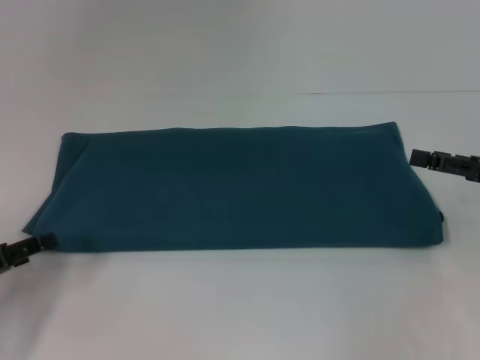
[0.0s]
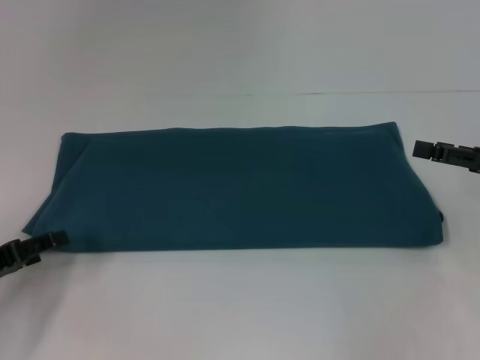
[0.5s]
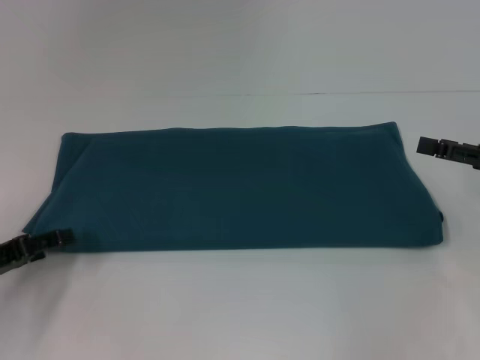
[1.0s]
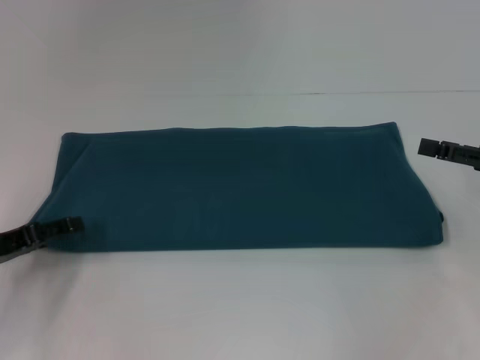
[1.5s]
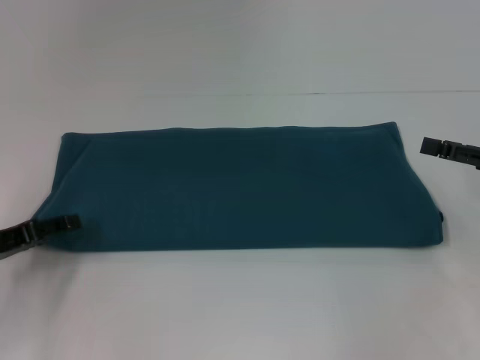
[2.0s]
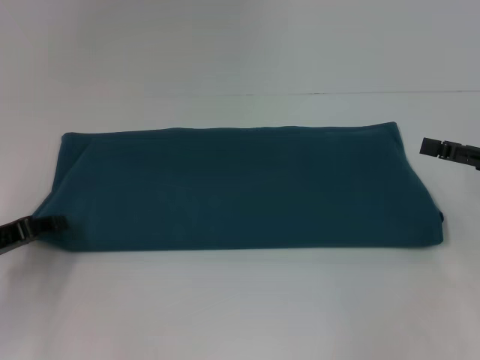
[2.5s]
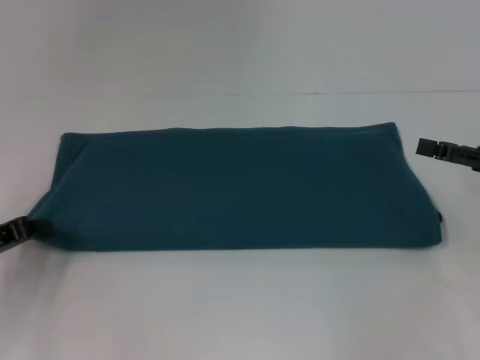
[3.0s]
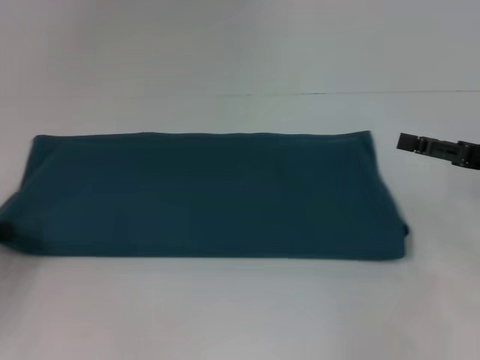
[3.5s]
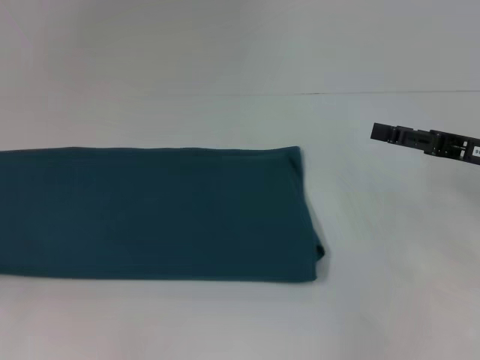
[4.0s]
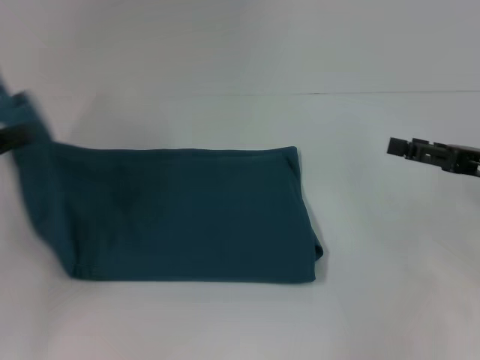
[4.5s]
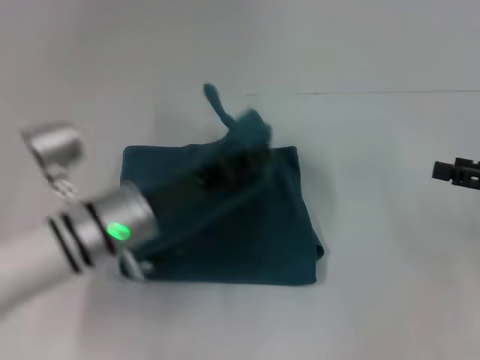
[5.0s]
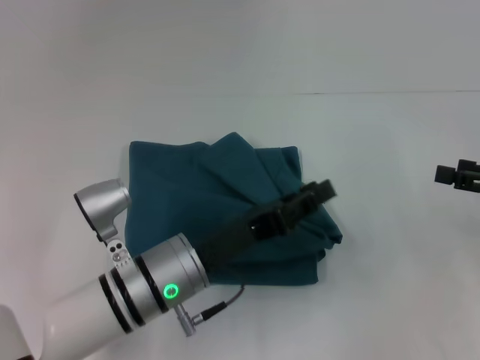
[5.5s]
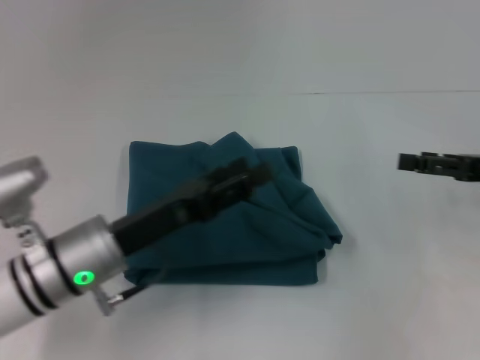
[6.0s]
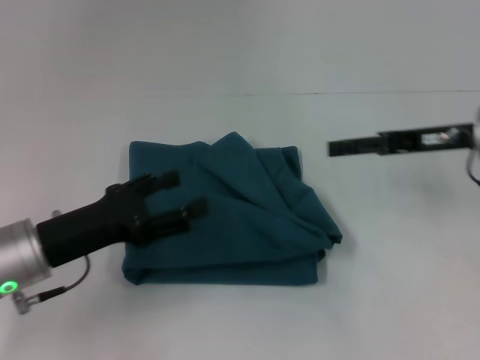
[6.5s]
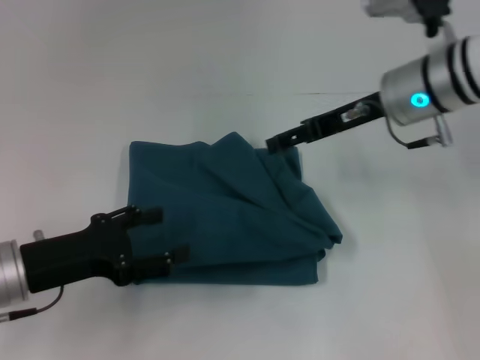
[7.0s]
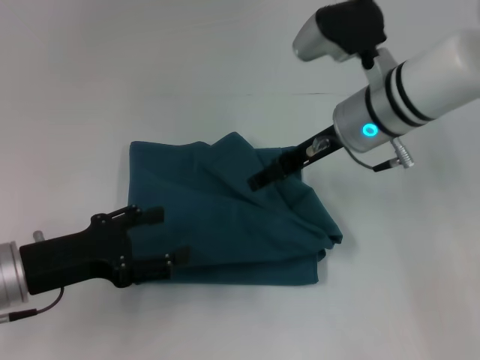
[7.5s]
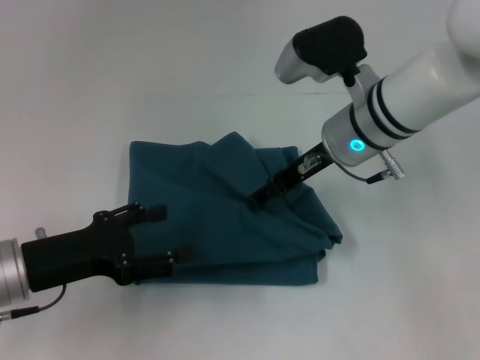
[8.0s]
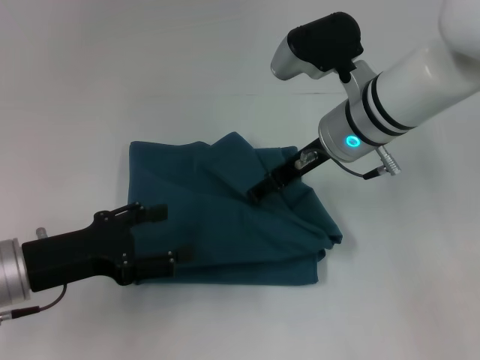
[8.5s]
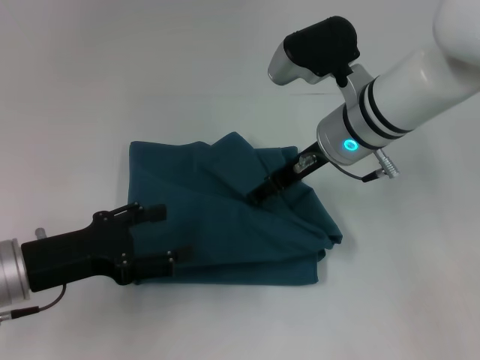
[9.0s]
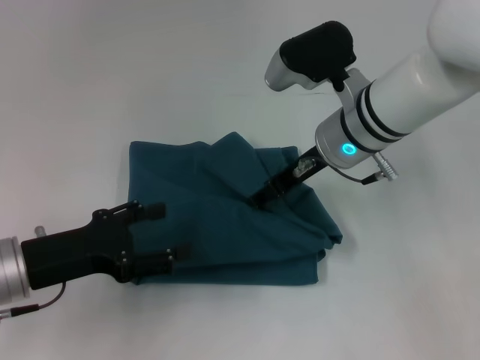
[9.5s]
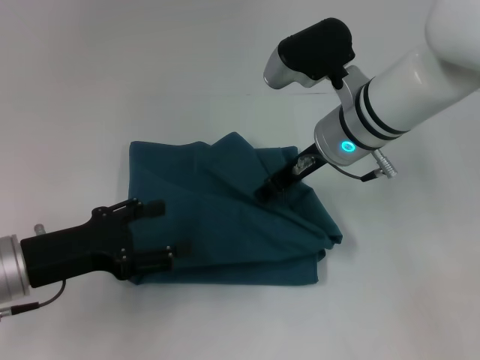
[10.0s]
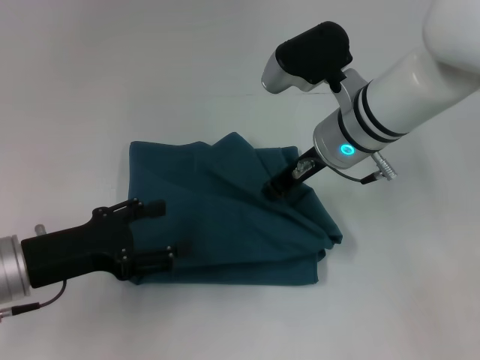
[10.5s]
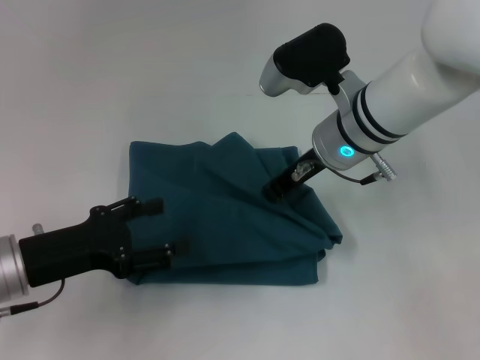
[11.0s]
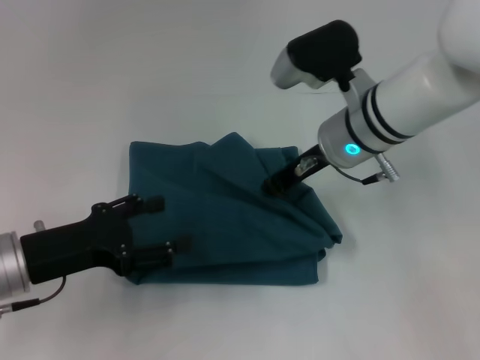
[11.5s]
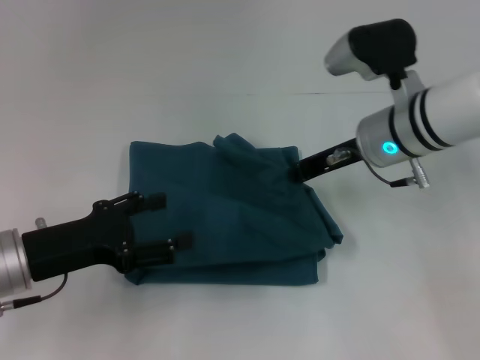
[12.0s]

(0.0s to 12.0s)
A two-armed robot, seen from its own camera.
Step, 0.0s - 5.5s: Fold the clothes to the left.
0.0s - 2.0s: The grippers make only small movements.
2.0s - 4.0s: The left gripper travels to the left and backward by roughly 10 cm, and closes its fingers. Meanwhile the right gripper changes place by about 5 cm.
4.0s - 6.0s: The left gripper moves to the right, roughly 25 cm, and opens.
6.0s - 8.0s: The right gripper shifts roughly 25 cm to the left, while the left gripper is displaced to the left by some 10 cm.
8.0s - 10.0s: Both grippers stay put.
10.0s - 12.0s: The right gripper goes approximately 5 cm to the right, and closes its fingers.

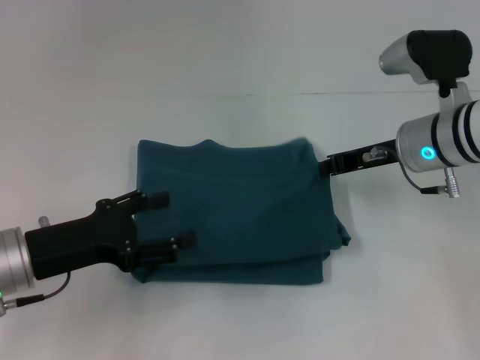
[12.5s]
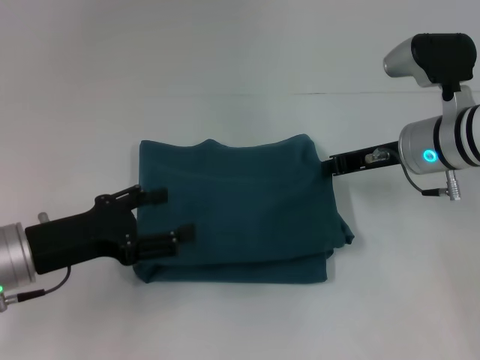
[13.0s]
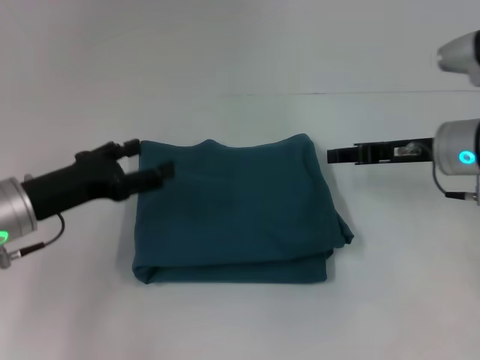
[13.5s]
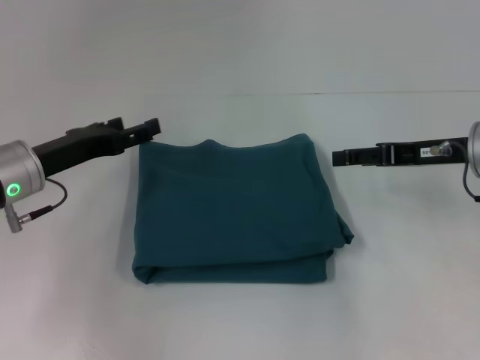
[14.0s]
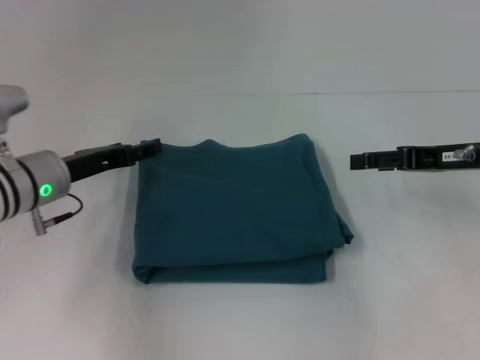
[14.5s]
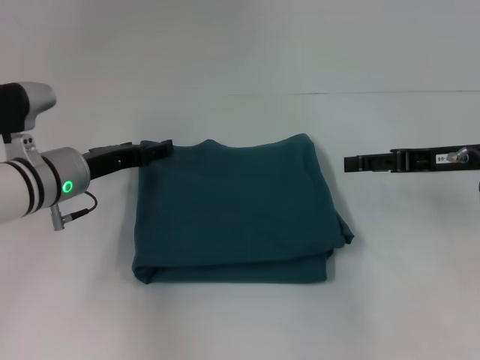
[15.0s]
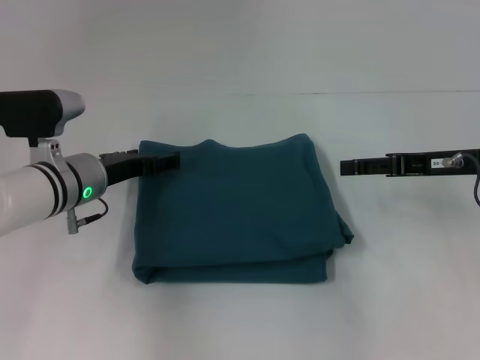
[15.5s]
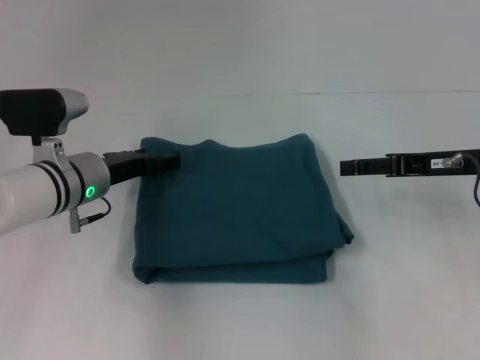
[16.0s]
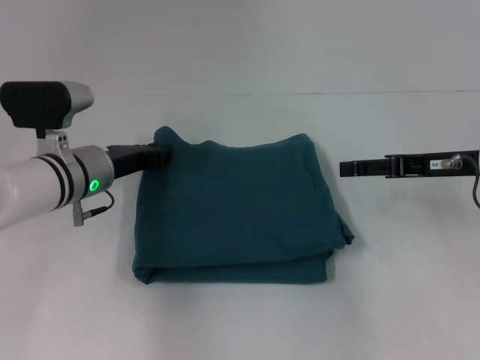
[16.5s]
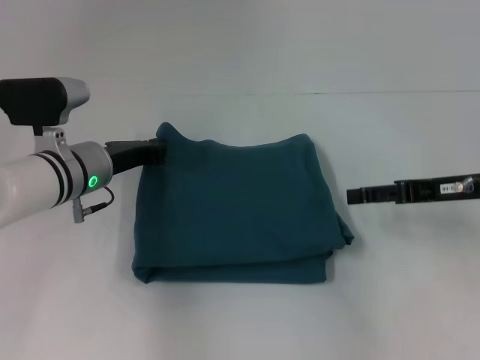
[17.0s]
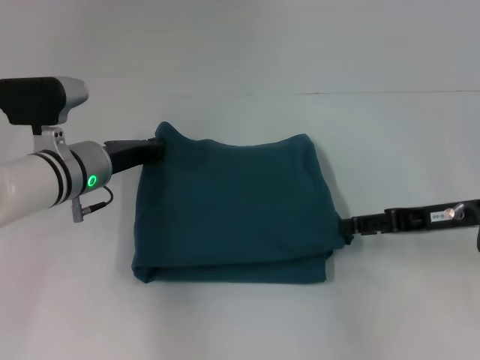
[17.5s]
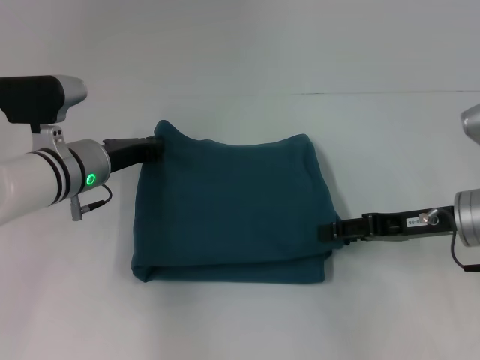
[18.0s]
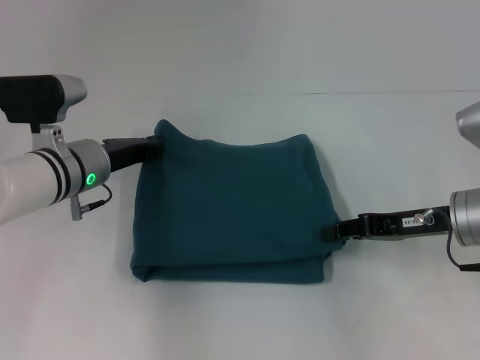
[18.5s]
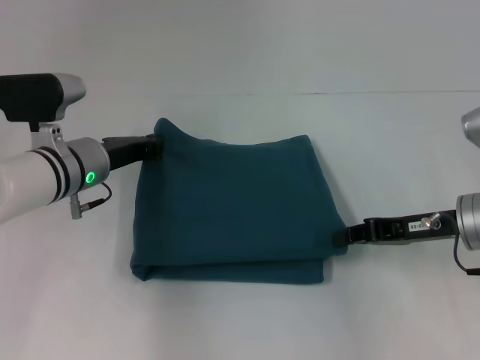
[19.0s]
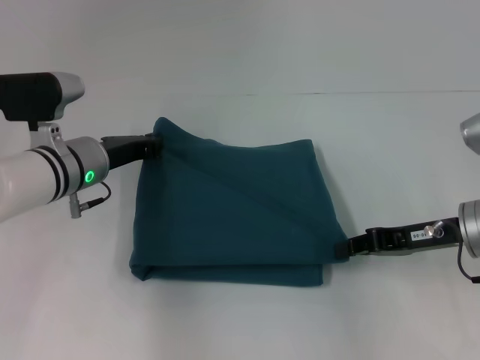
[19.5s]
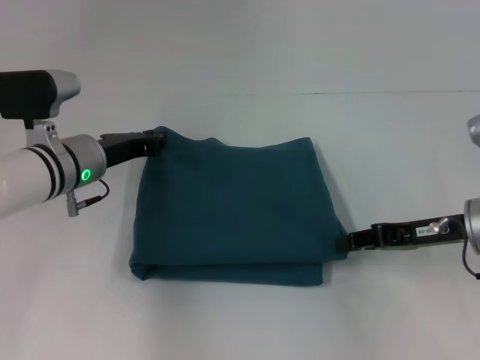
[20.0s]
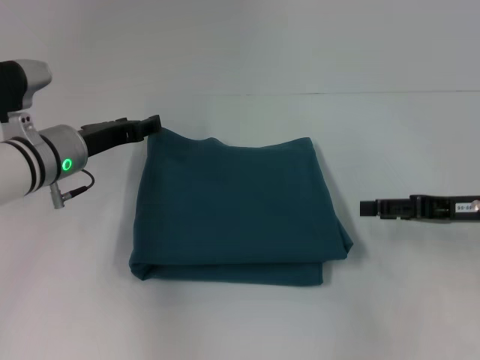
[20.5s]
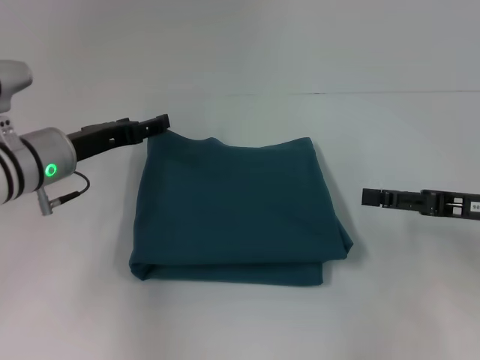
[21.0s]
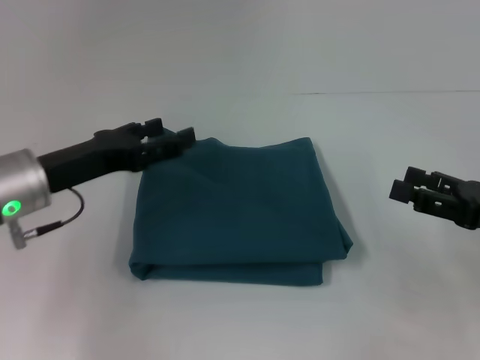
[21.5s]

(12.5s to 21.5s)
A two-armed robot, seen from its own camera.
12.5s - 14.5s: The right gripper goes approximately 10 cm to the right, and opens its fingers. The left gripper moves forward, about 10 cm.
14.5s - 17.0s: The left gripper shifts by some 5 cm, and closes.
17.0s - 19.5s: The right gripper closes up.
19.5s - 21.5s: The left gripper moves backward, some 5 cm, and opens, while the right gripper moves to the right and backward, approximately 10 cm, and opens up.

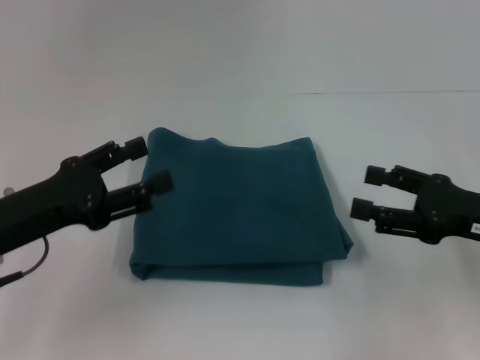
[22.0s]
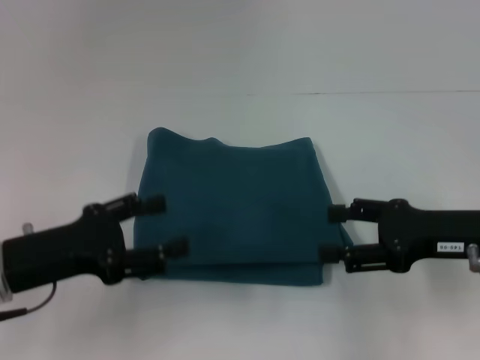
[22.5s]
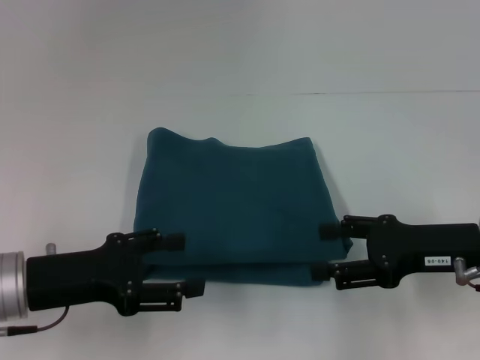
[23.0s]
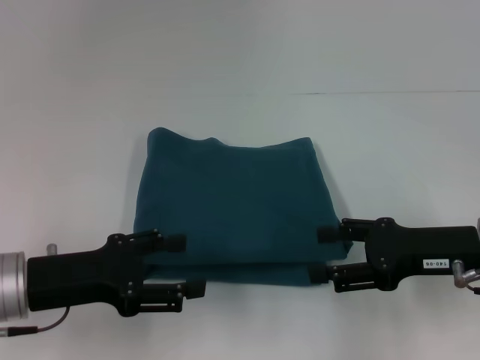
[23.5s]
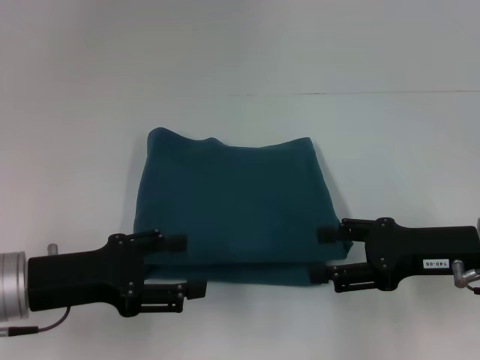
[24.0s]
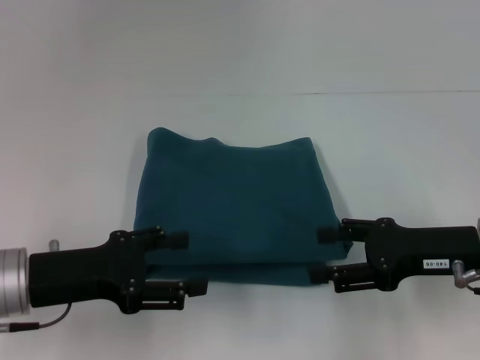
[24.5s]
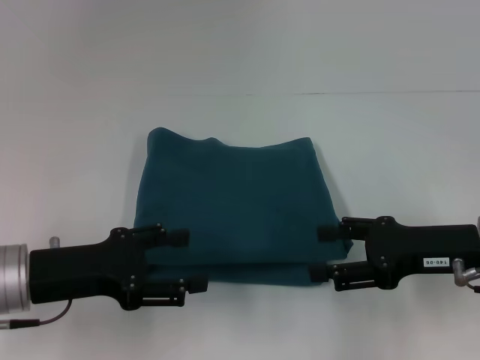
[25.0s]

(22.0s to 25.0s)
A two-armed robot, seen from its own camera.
23.5s - 25.0s: Neither gripper changes place.

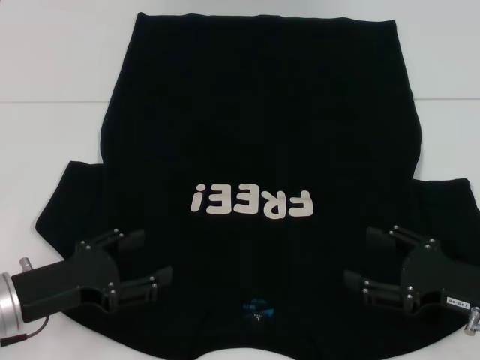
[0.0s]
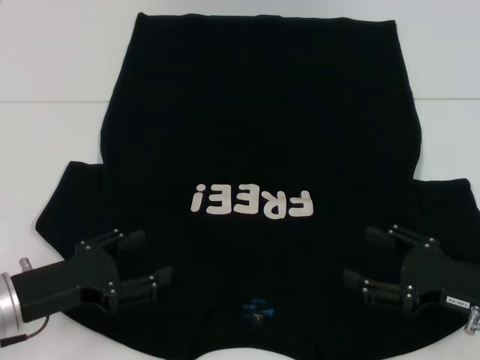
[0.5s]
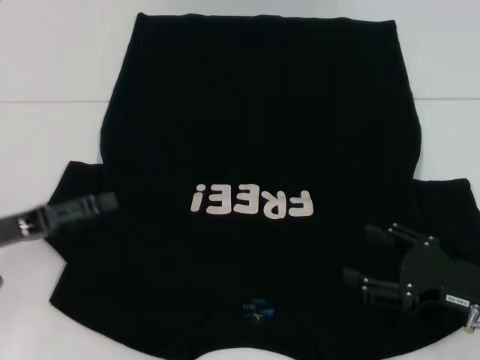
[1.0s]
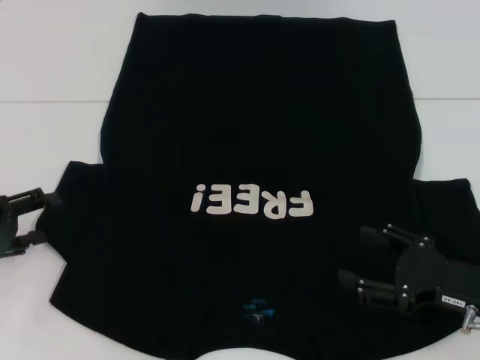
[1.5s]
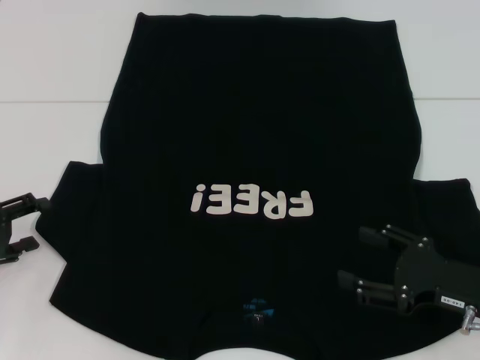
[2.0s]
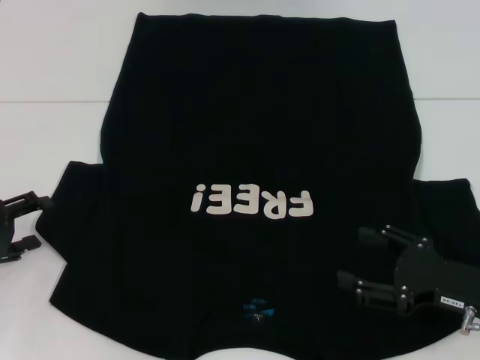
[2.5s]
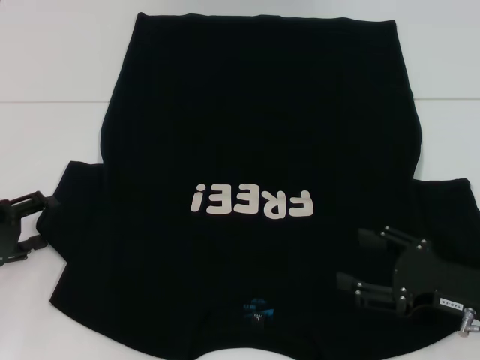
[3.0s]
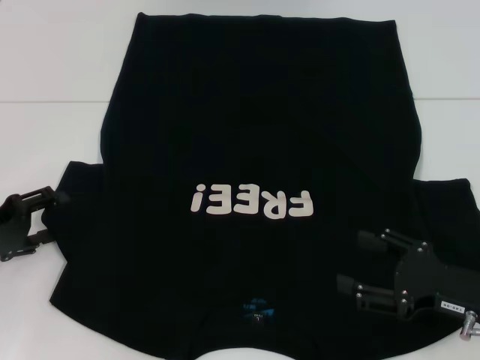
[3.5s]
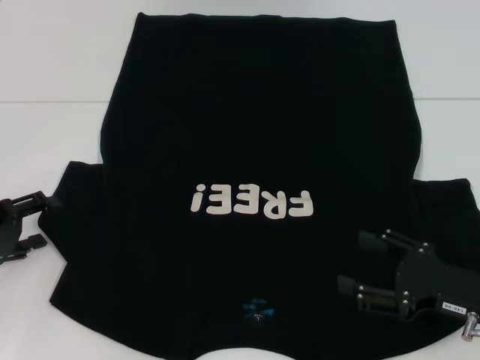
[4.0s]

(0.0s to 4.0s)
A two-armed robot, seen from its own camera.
0.0s - 2.0s: The left gripper moves to the left, about 10 cm.
2.0s - 4.0s: The grippers make only small movements.
